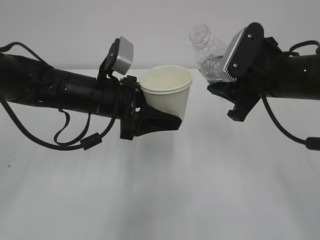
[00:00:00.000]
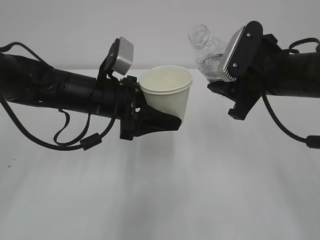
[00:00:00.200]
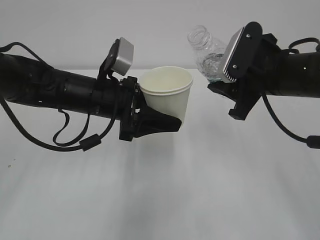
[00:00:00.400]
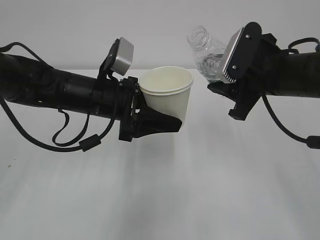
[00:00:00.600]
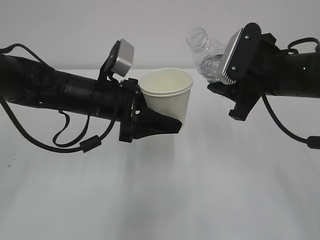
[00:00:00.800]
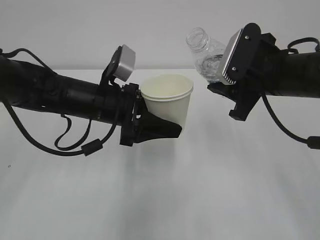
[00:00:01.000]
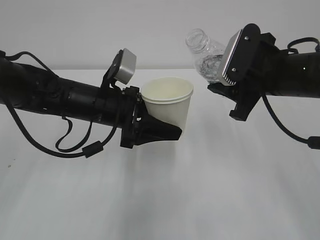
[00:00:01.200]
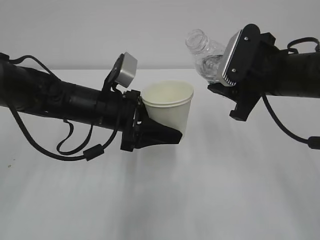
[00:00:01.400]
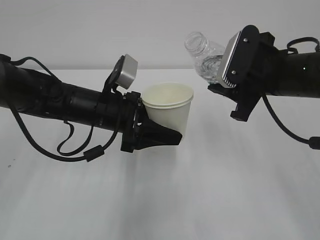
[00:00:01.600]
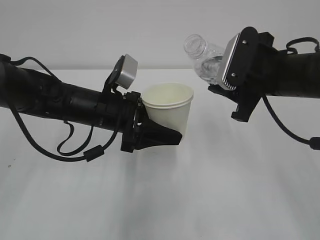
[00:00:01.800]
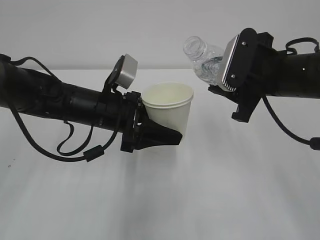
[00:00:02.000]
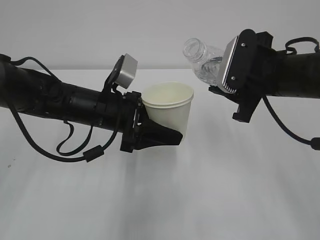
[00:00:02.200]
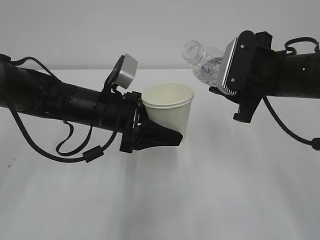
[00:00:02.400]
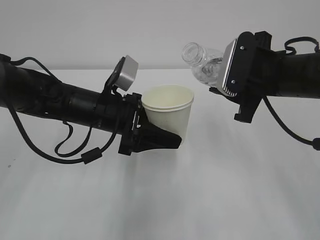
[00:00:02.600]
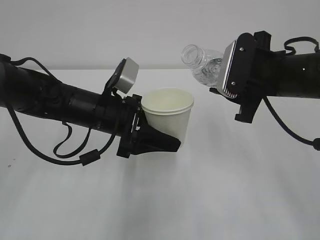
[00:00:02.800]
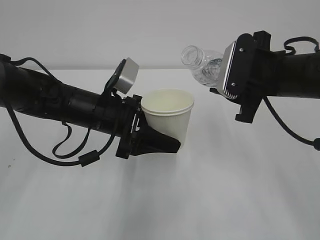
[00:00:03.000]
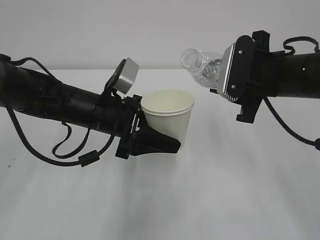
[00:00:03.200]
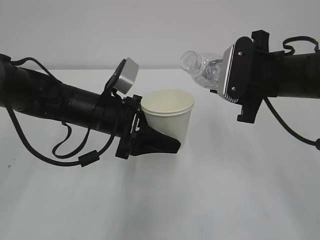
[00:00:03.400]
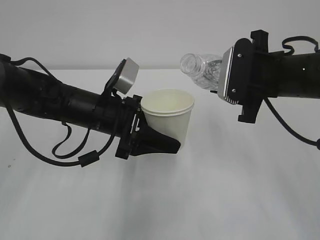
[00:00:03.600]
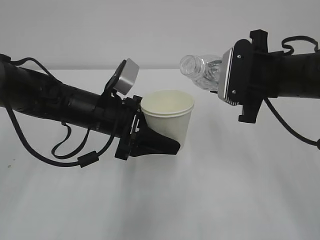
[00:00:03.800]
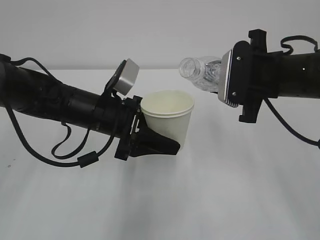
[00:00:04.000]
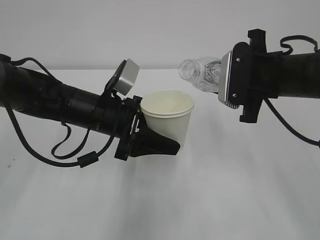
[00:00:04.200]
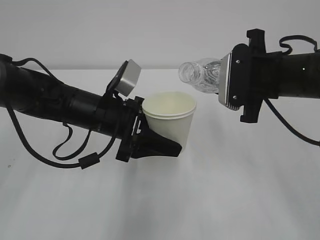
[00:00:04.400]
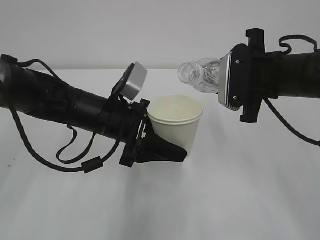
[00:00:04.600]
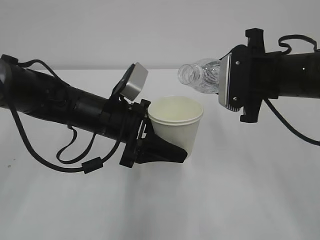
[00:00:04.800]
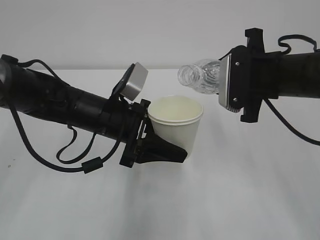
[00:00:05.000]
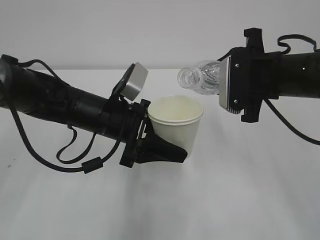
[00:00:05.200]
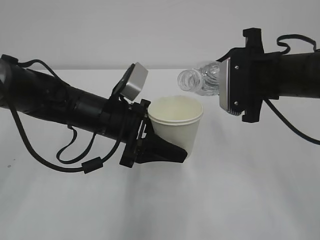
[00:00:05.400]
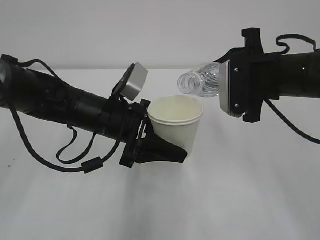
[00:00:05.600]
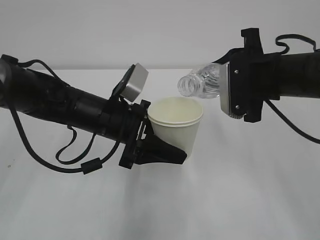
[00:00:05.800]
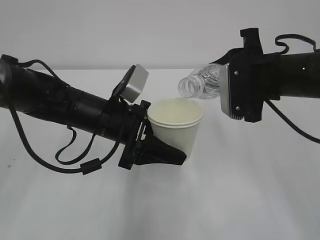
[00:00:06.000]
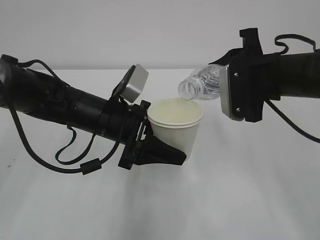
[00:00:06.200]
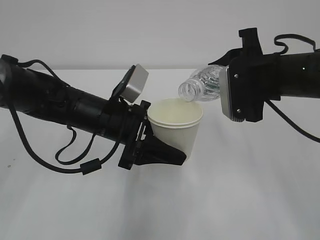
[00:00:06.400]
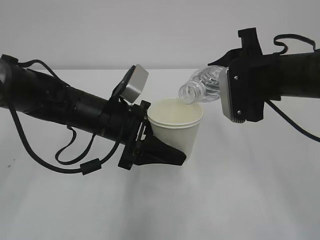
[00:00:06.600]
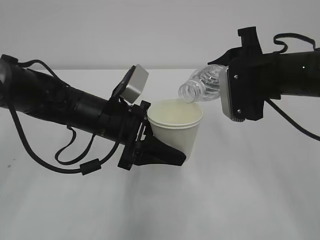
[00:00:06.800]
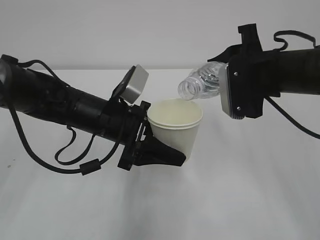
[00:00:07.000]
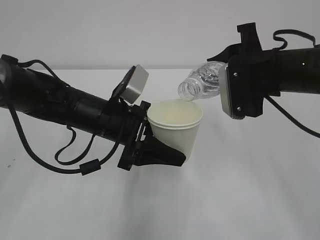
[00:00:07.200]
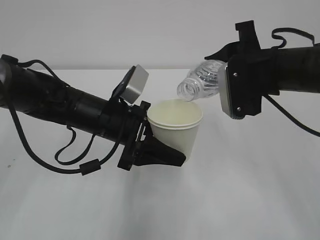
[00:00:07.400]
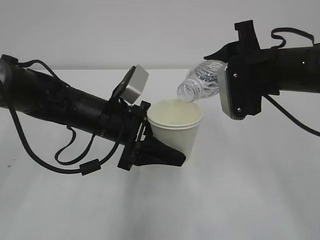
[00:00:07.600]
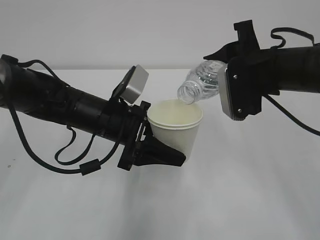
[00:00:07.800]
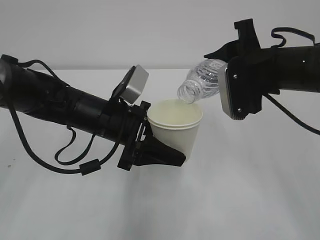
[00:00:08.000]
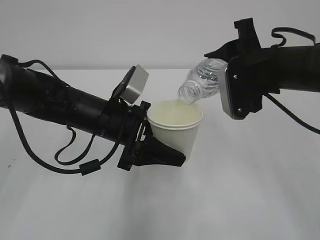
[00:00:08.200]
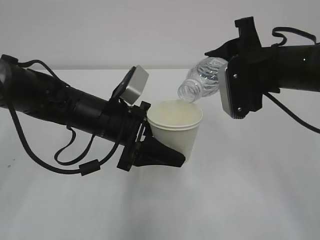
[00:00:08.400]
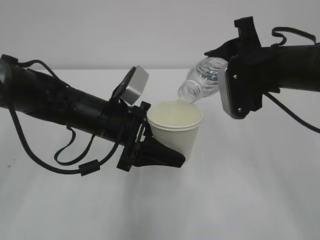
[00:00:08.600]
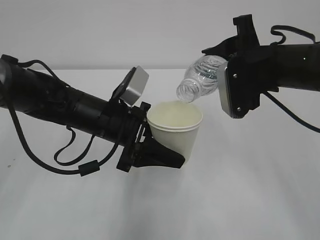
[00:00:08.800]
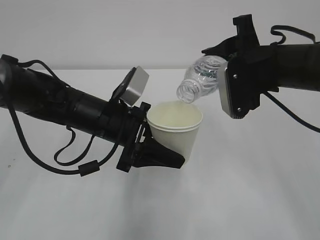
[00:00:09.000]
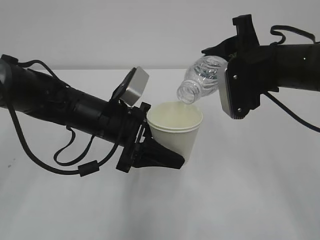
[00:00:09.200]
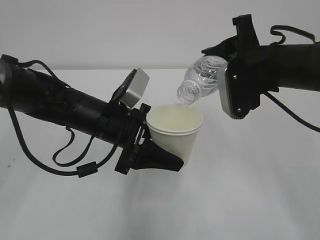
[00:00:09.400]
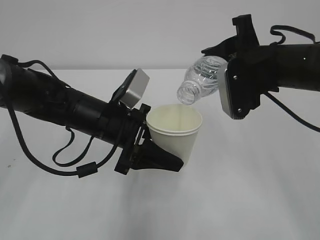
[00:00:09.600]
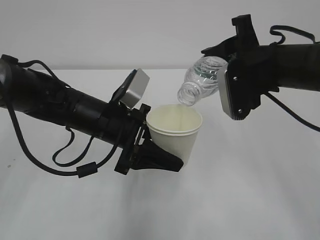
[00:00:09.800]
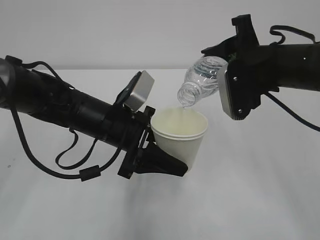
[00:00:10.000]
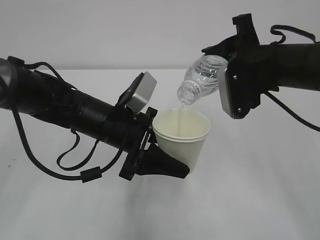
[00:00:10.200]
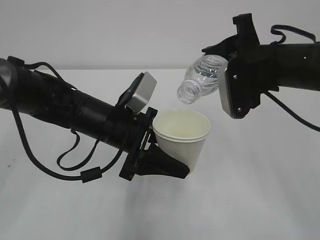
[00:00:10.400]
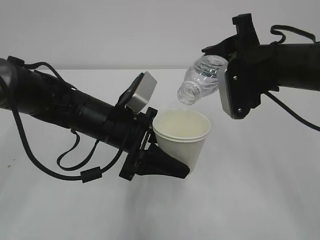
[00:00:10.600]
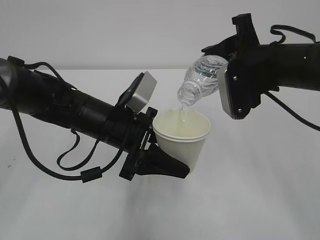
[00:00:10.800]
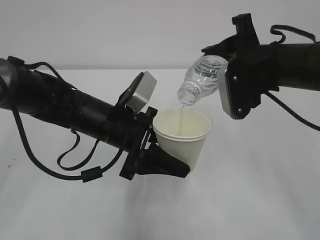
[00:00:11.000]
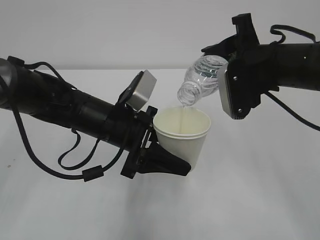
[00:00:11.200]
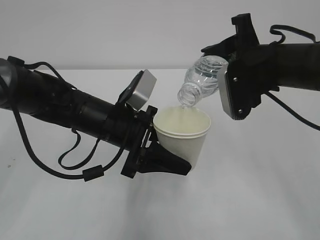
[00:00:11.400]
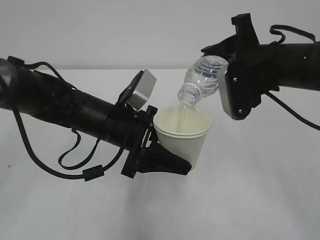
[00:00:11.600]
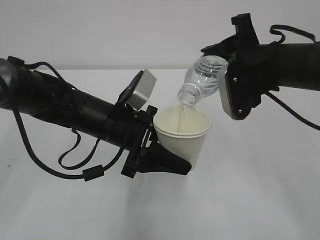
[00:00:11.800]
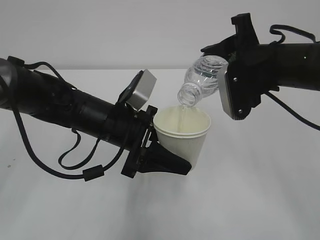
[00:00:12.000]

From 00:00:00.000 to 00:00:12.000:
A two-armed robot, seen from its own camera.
From 00:00:00.000 to 00:00:03.000: The grippers stay close to where they were, moving slightly.
From 00:00:03.000 to 00:00:04.400: The grippers move only a little.
From 00:00:04.400 to 00:00:07.600: The grippers stay close to where they were, moving slightly.
From 00:00:07.600 to 00:00:09.000: The grippers move only a little.
From 00:00:09.000 to 00:00:12.000: Both grippers stay put.

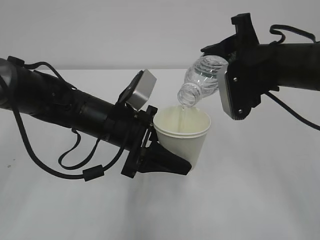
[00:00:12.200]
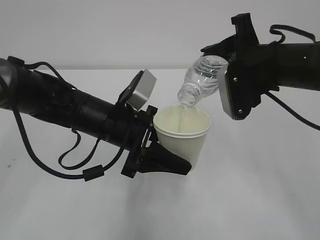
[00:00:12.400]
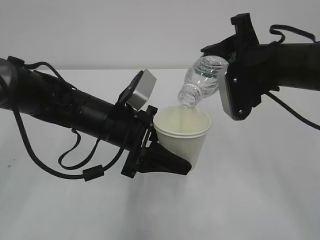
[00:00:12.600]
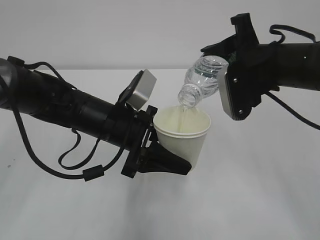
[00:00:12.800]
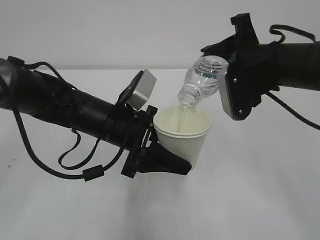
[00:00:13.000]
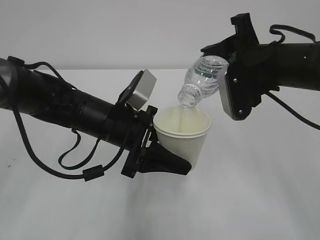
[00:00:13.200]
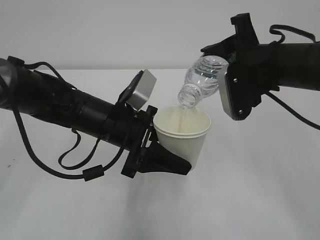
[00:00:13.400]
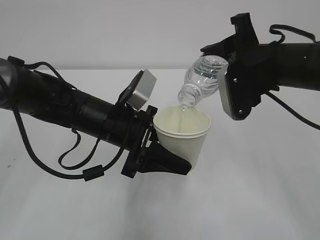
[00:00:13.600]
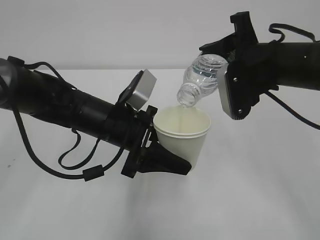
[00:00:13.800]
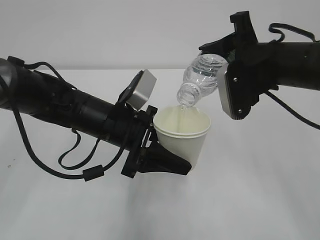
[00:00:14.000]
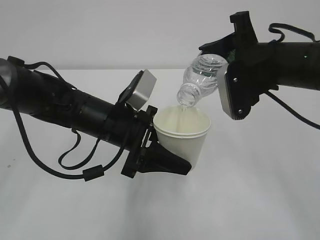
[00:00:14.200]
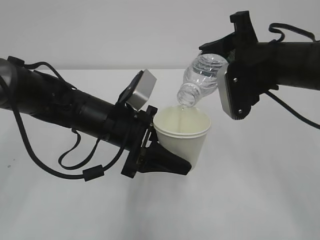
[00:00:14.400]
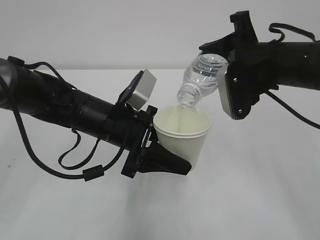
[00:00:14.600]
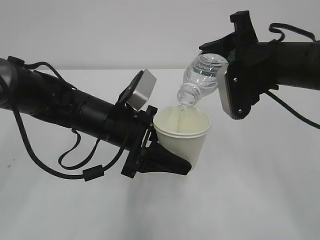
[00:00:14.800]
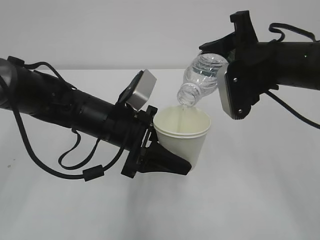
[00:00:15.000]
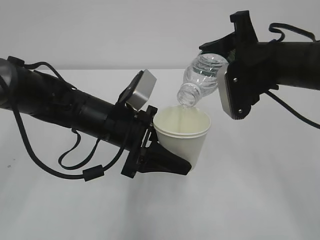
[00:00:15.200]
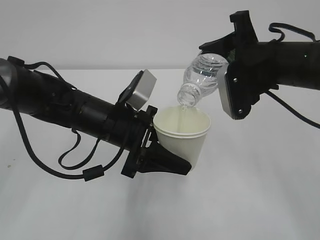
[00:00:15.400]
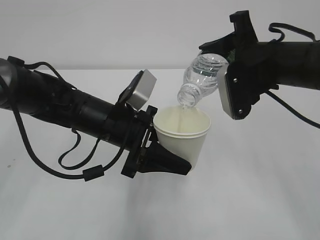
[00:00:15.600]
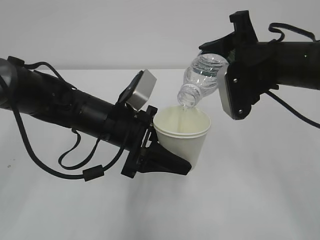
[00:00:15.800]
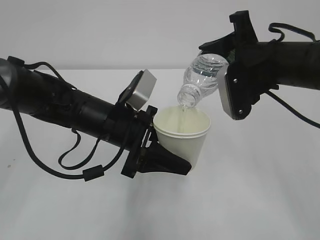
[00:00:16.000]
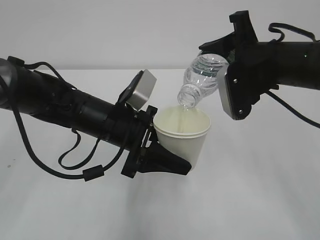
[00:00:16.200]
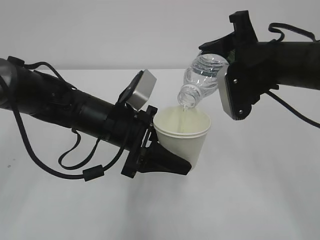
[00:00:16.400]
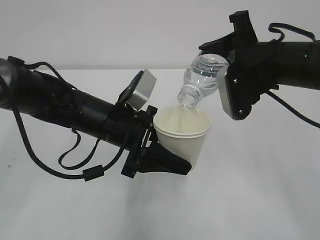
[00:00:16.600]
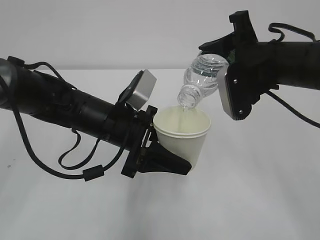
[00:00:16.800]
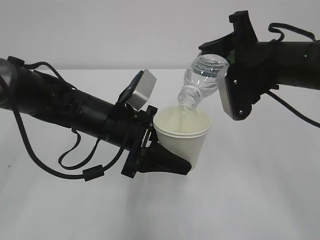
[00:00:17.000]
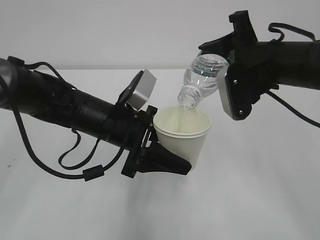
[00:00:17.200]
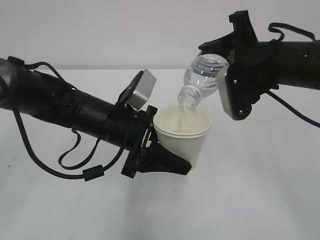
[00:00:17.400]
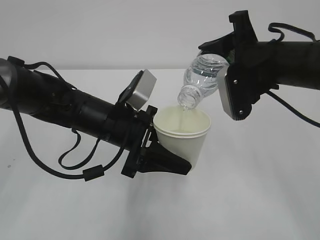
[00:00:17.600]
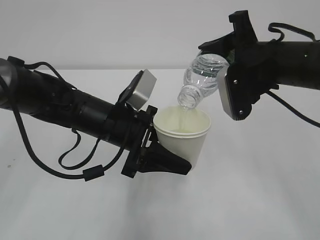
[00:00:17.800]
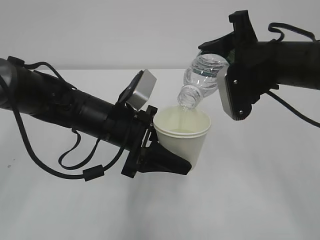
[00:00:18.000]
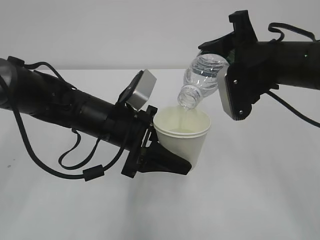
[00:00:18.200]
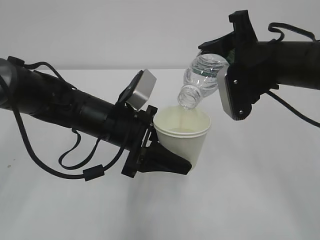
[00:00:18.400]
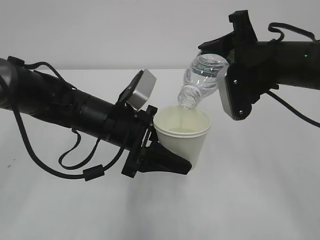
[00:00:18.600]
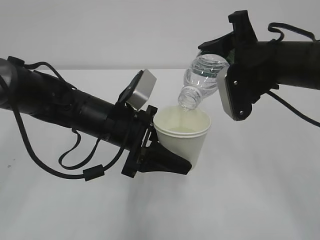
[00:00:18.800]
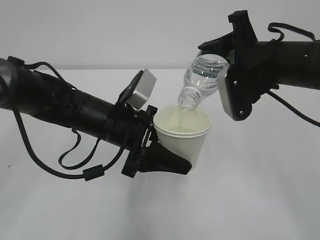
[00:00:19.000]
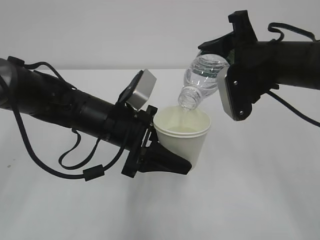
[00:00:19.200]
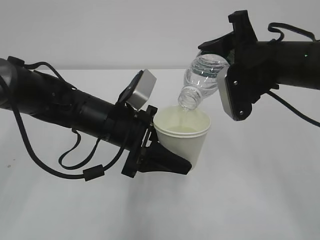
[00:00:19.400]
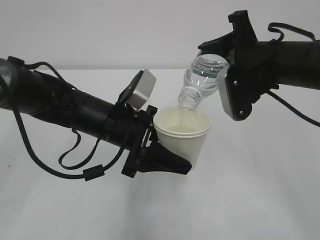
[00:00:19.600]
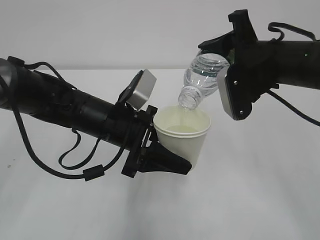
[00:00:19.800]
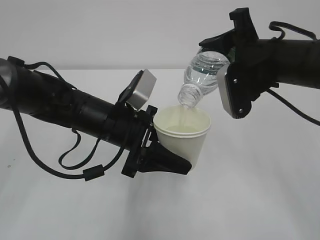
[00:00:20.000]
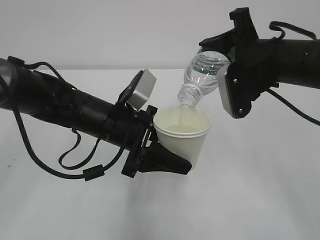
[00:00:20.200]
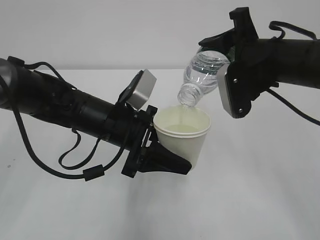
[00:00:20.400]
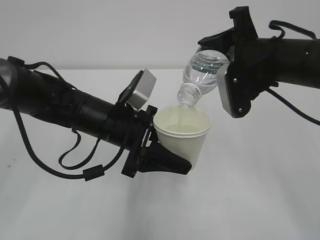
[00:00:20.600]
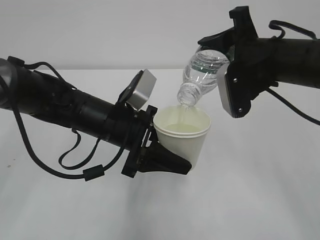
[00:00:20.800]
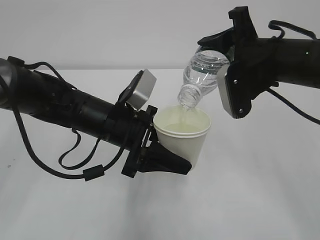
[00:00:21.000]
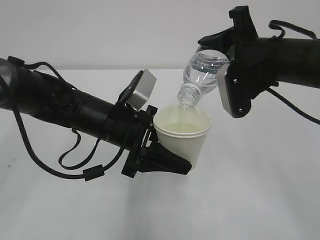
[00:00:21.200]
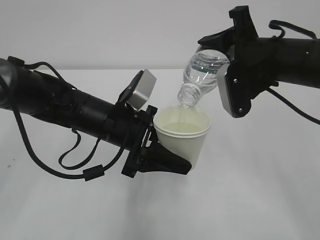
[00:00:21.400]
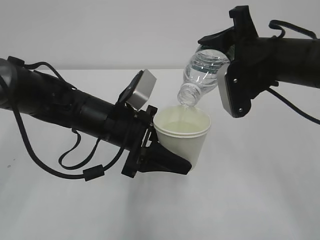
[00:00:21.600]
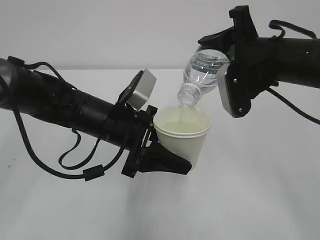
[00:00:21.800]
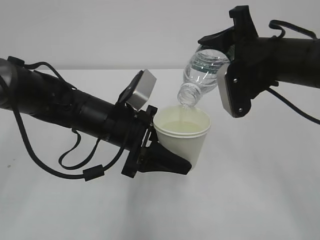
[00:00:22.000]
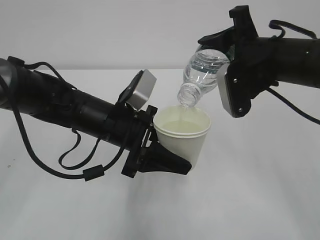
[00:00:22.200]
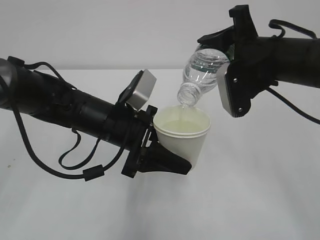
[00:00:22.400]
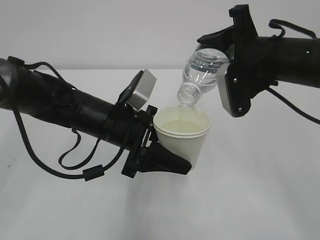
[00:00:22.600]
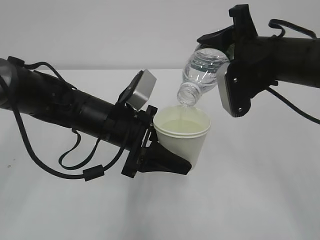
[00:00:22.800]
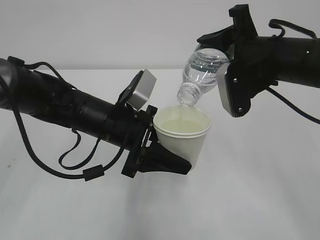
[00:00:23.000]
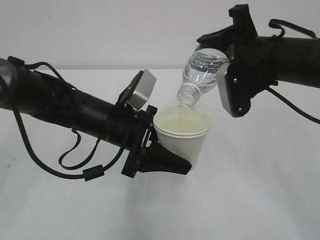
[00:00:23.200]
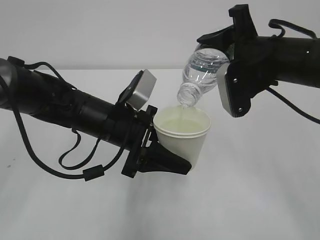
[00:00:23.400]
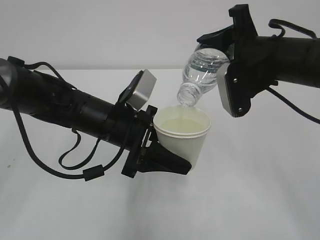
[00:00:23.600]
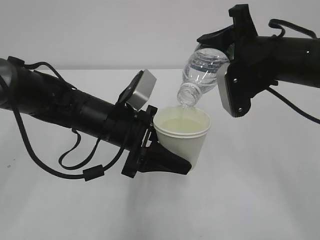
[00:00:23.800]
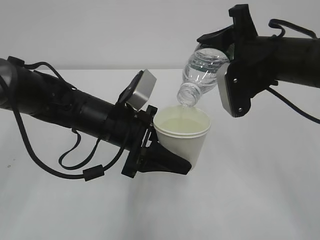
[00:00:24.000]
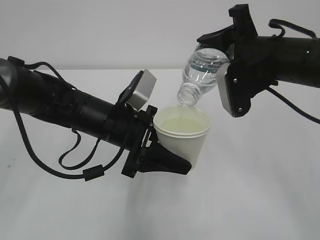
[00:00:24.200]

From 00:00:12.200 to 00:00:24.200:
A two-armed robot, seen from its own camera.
From 00:00:12.200 to 00:00:18.200: Both grippers stay about where they are.
From 00:00:18.200 to 00:00:24.200: Neither gripper changes place.
